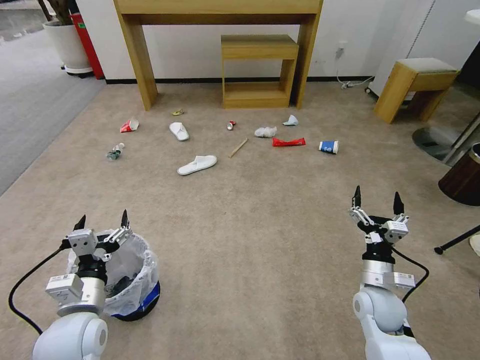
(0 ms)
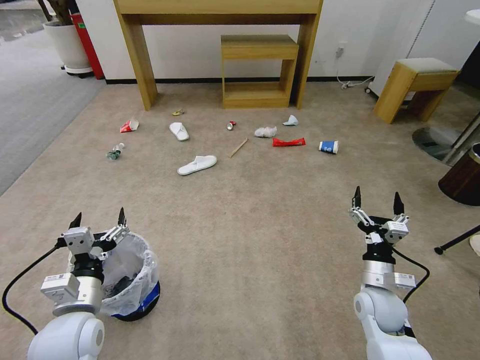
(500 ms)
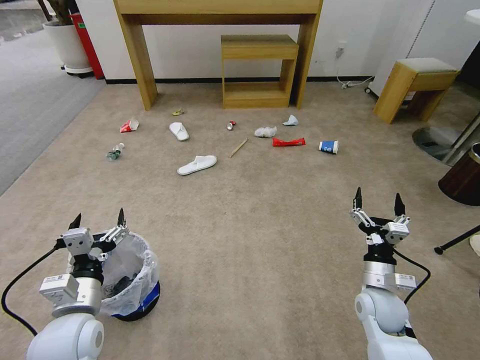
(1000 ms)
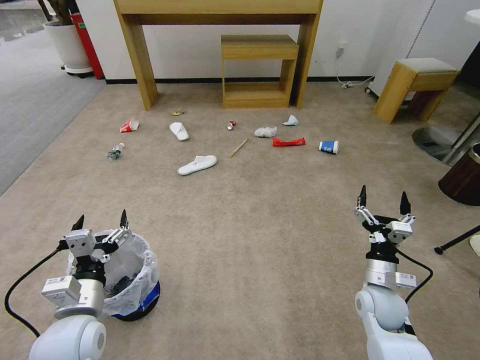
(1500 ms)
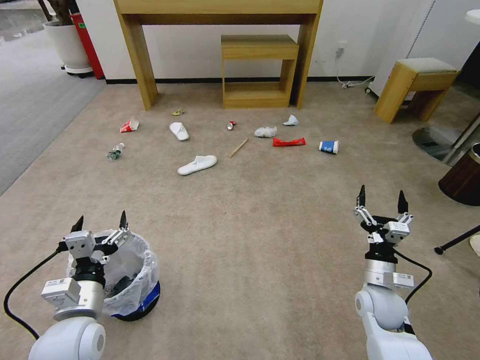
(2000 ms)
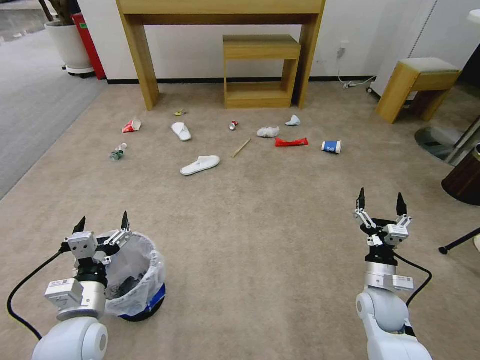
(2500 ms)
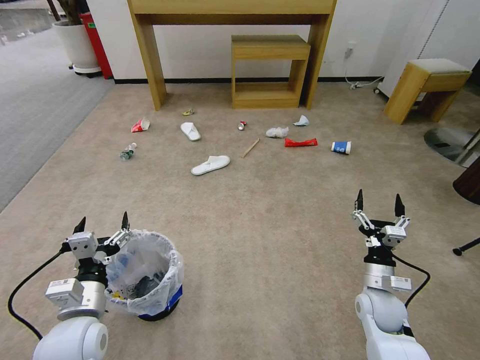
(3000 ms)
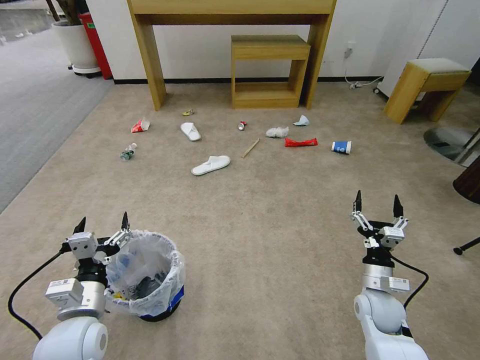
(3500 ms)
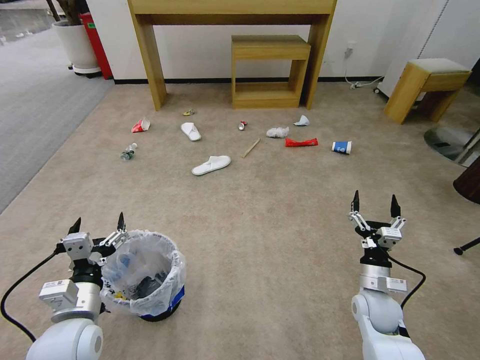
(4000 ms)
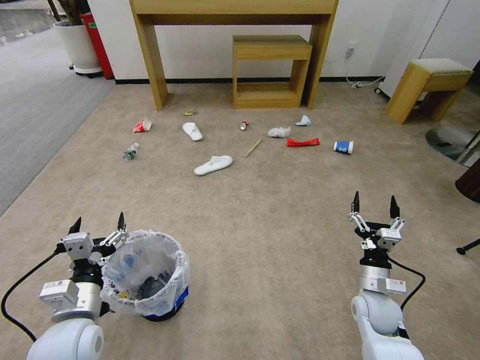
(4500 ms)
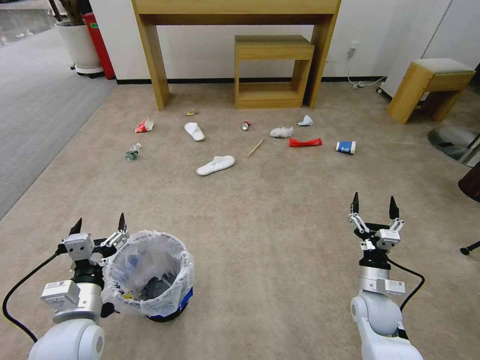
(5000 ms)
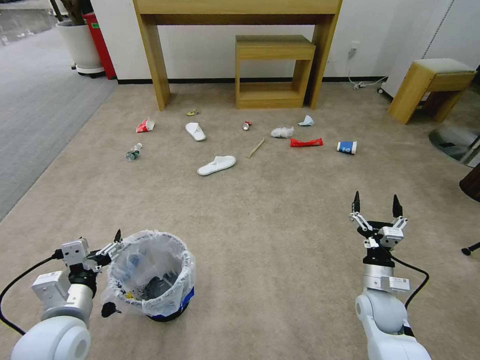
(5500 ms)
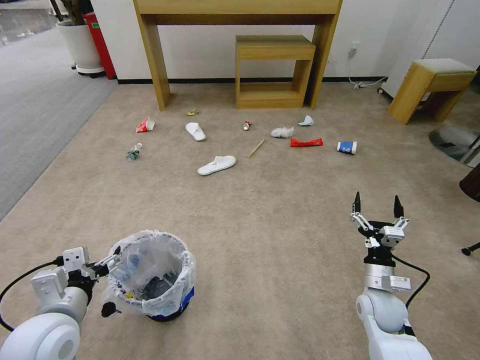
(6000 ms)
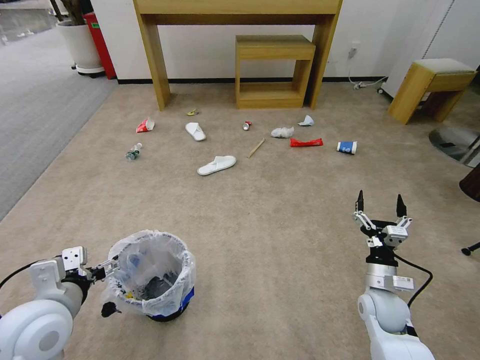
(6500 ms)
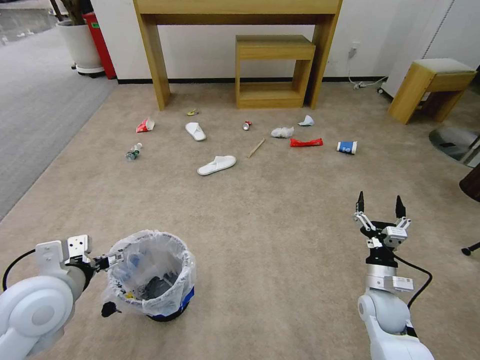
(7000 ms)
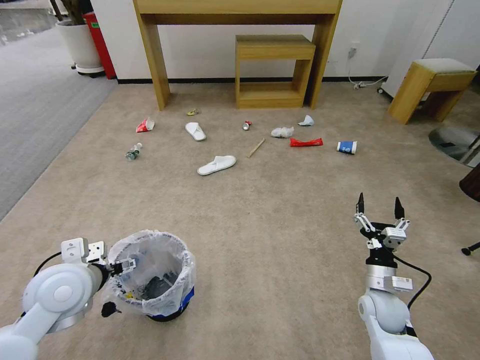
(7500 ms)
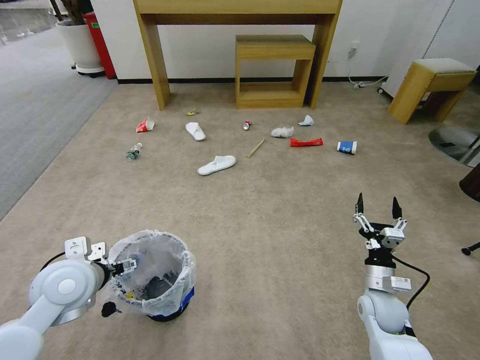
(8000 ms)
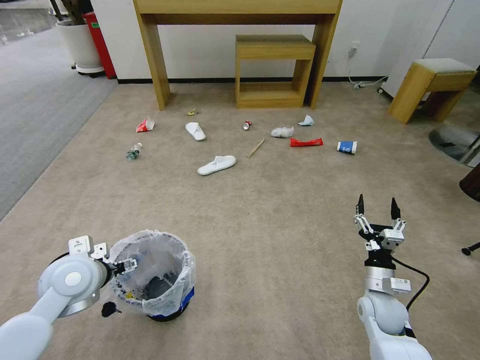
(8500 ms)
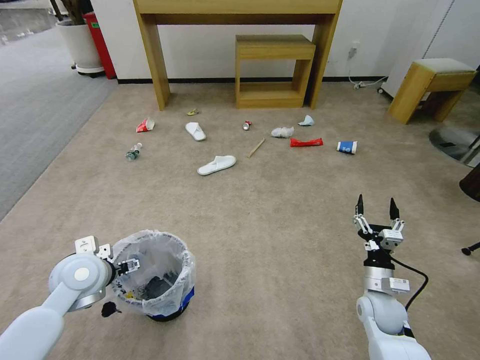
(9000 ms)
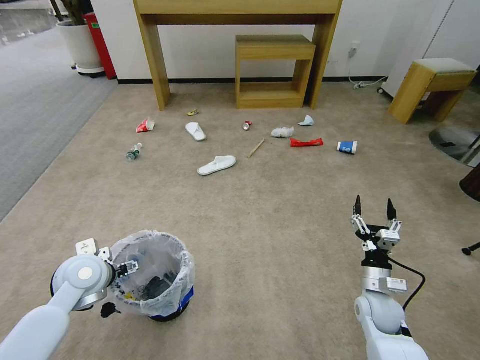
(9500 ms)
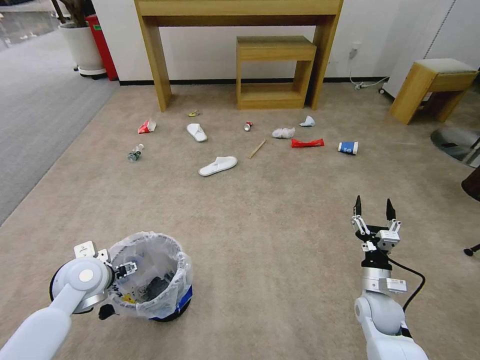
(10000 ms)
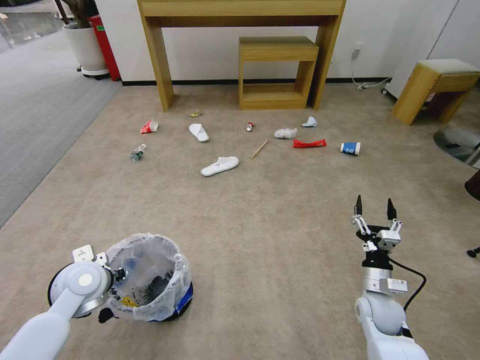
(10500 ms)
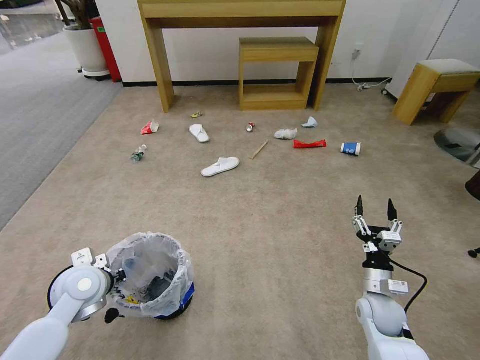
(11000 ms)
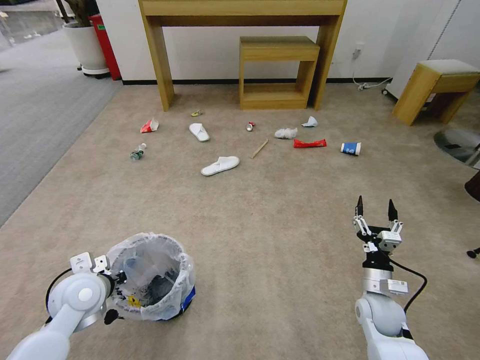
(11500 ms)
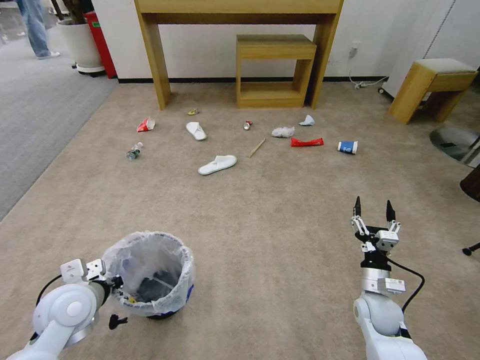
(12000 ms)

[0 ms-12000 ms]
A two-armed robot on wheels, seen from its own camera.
Task of the whole recording: Pick up the trash bin and place the garbage on the floor into it.
2000 ms to 4000 ms: There are only small adjustments of the grippers.
6000 ms to 8000 ms: The left gripper shifts about 10 cm forward.
8000 ms to 10000 ms: The left gripper shifts about 5 cm downward.
10000 ms to 12000 ms: The left gripper goes some 5 cm backward, and closes its fingers.

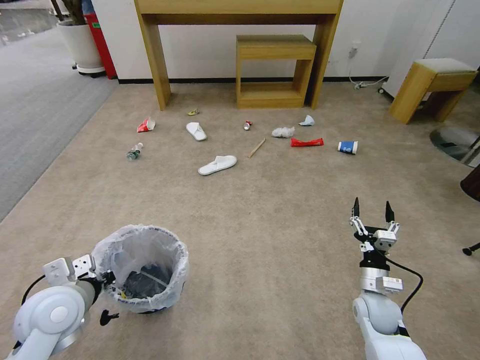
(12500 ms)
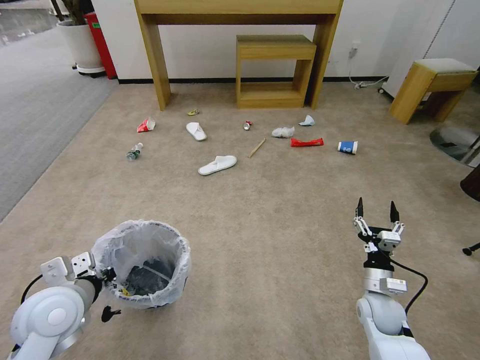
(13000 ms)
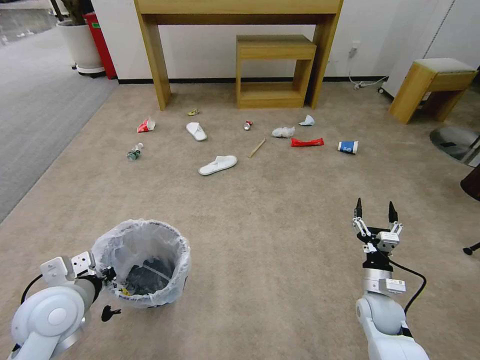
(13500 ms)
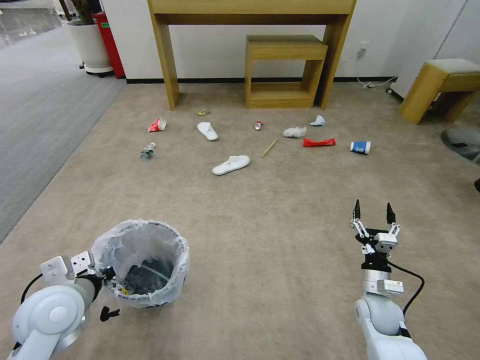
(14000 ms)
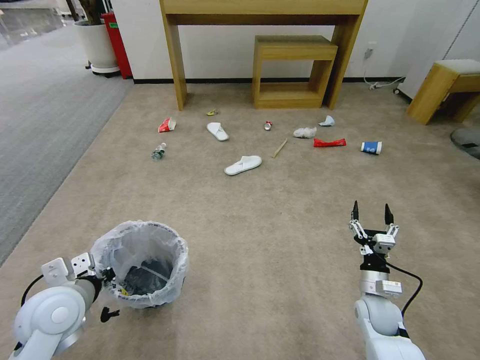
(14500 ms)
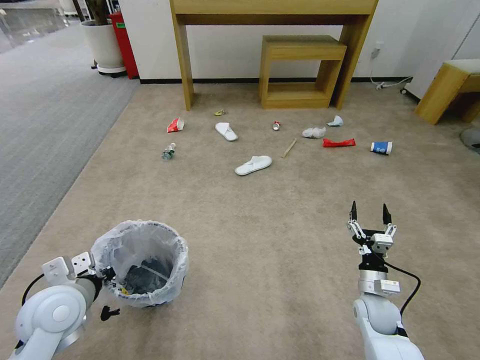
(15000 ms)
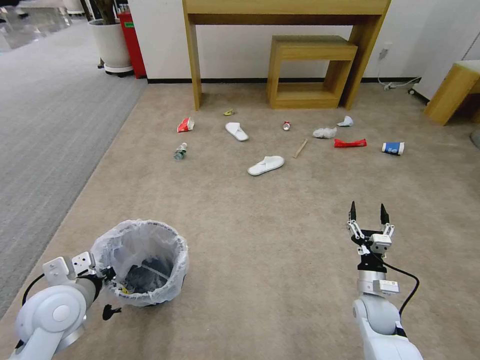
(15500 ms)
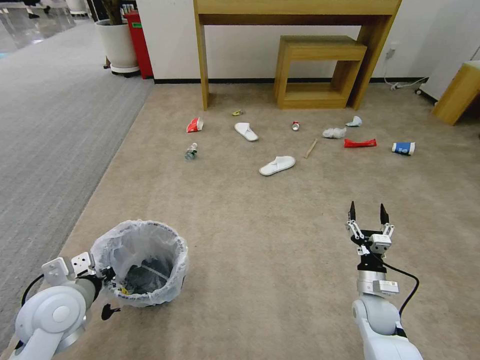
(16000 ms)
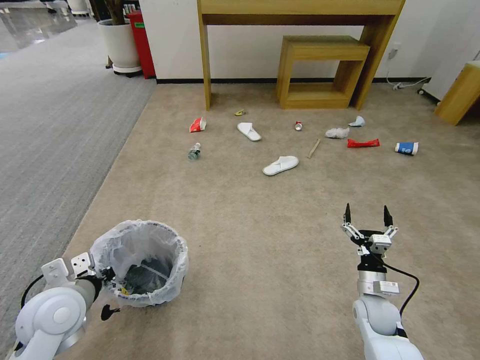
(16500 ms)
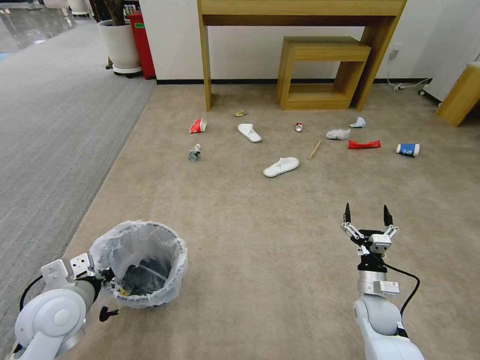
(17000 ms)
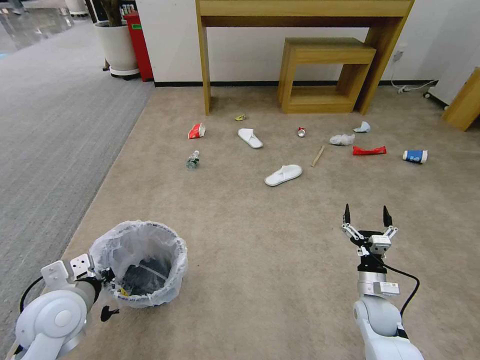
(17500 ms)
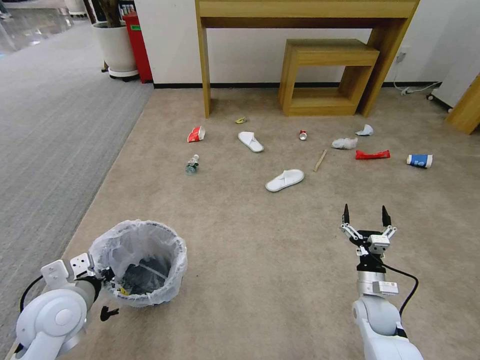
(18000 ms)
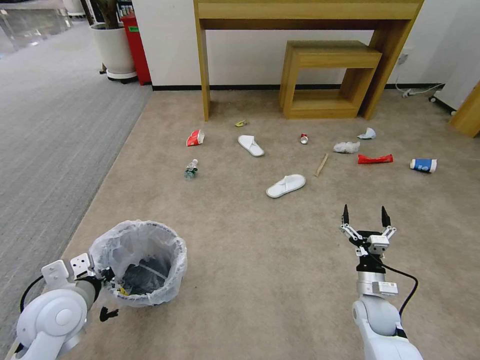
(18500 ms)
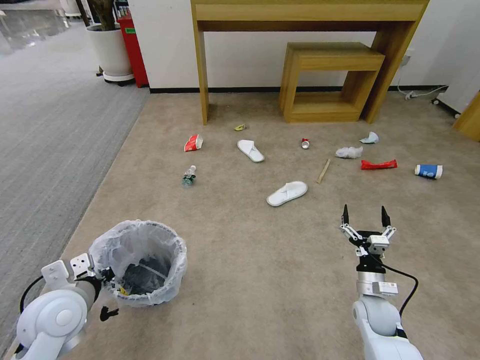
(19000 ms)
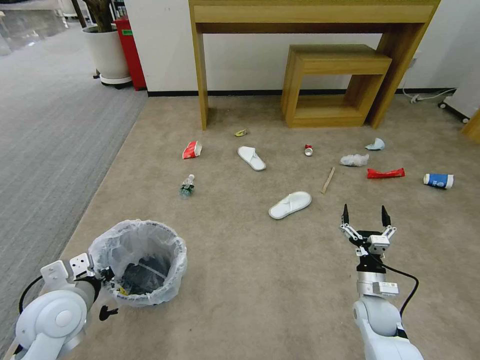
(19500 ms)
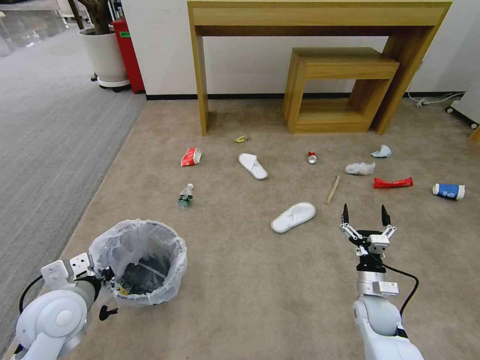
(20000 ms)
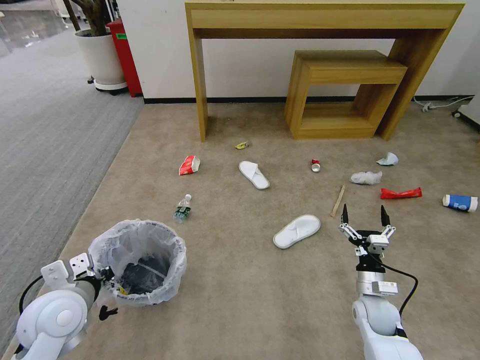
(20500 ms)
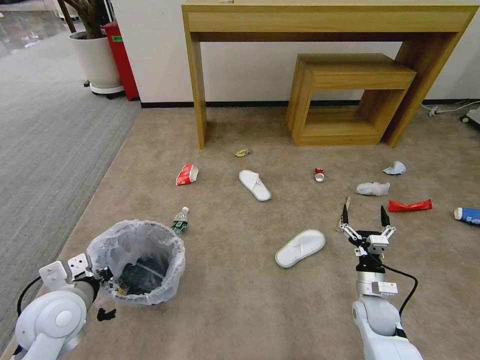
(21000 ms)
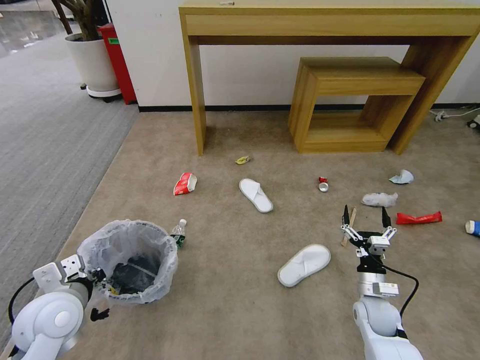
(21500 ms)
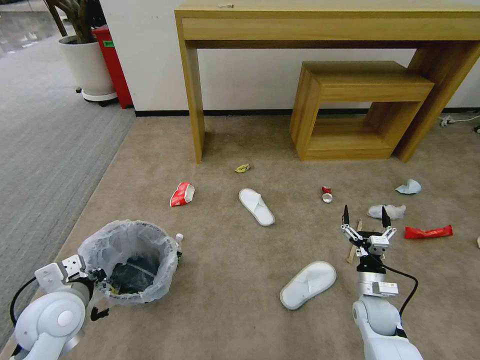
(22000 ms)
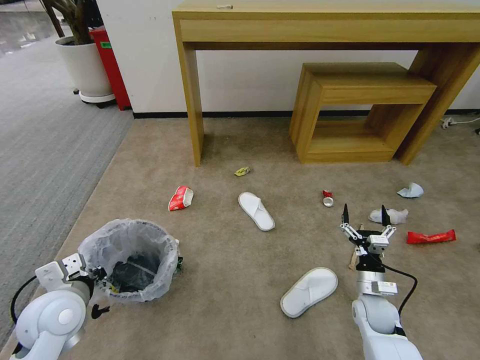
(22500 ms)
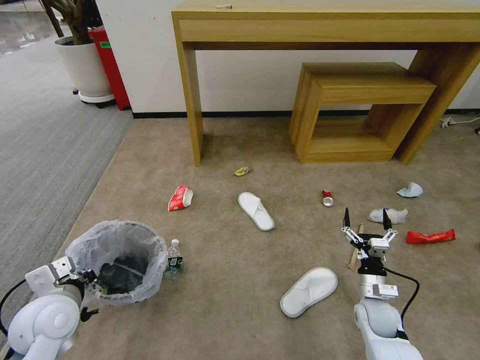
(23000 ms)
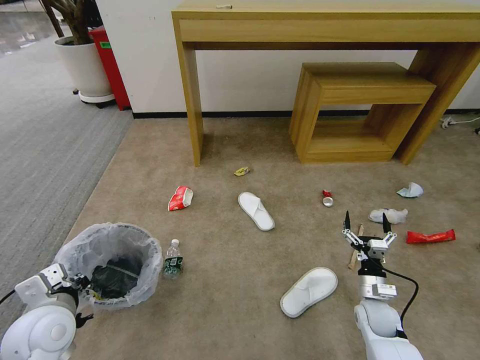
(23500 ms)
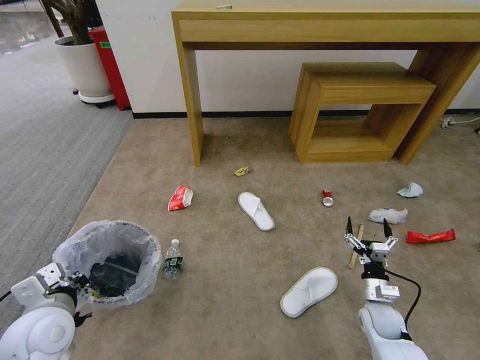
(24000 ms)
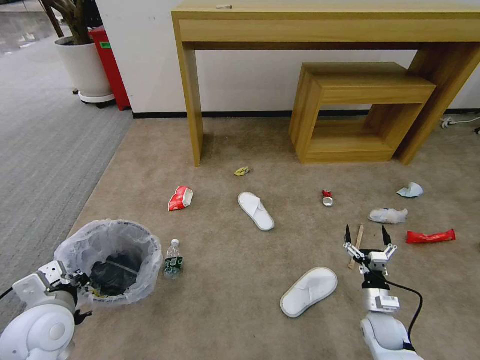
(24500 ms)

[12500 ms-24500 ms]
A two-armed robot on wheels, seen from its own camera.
Task of the whole recording: Pick up the trash bin and place the garbage on the floor into it.
12500 ms to 14500 ms: The grippers make only small movements.
14500 ms to 18500 ms: The two grippers keep their place.
22500 ms to 24500 ms: The right gripper changes place by some 5 cm.

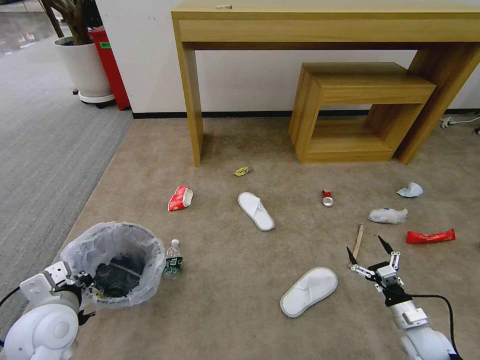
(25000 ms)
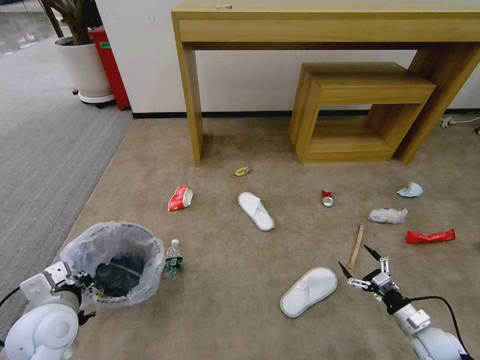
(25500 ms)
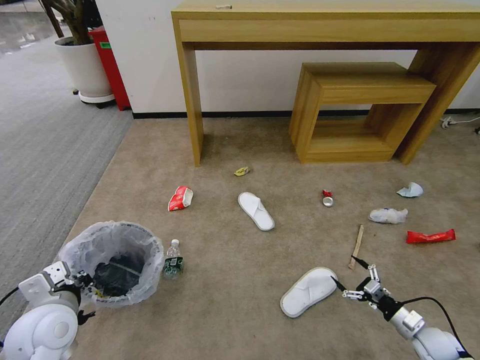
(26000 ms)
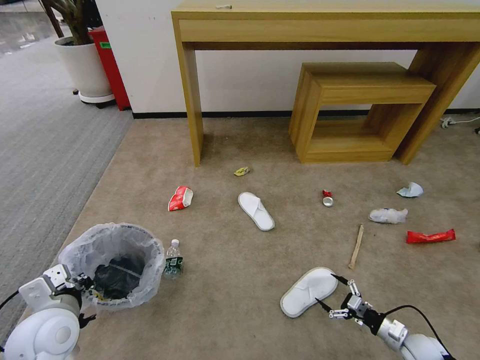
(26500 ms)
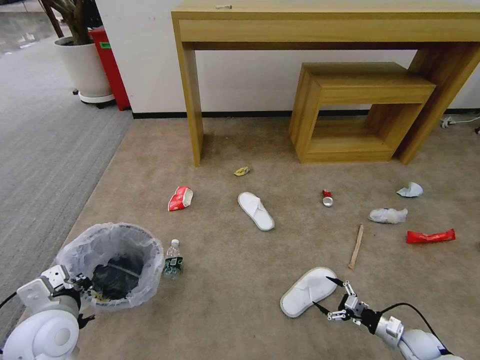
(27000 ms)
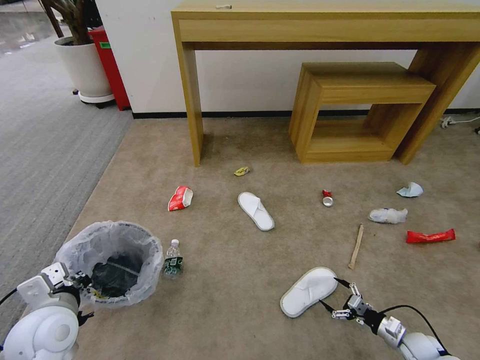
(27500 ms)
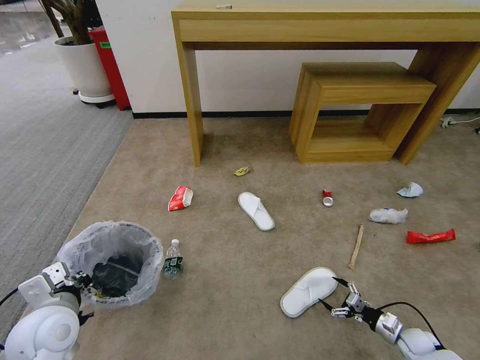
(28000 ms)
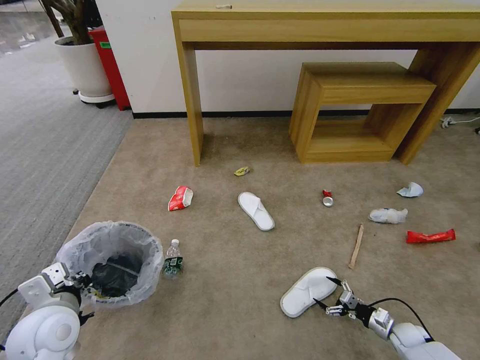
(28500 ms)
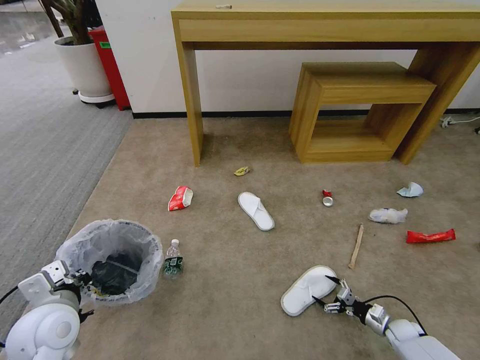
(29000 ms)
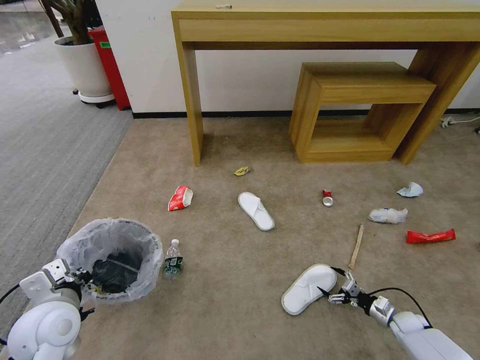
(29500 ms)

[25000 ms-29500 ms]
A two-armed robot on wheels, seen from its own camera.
Task of the whole recording: Pick up the trash bin and place the garbage on the floor into it.
25000 ms to 27000 ms: The right gripper heads downward, covering roughly 5 cm.
27000 ms to 29500 ms: The right gripper moves forward, about 5 cm.
